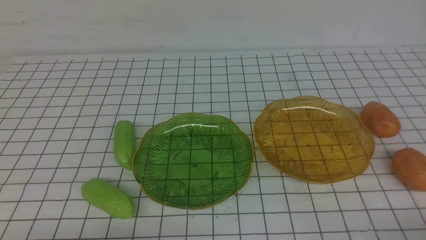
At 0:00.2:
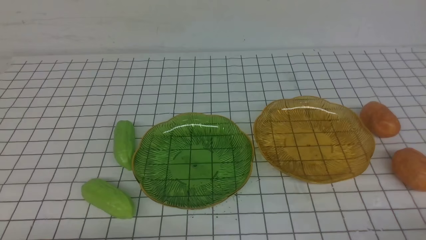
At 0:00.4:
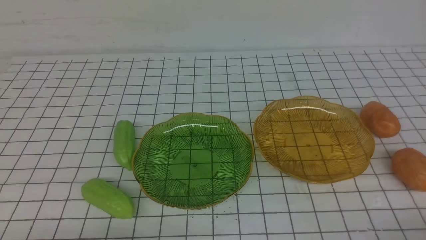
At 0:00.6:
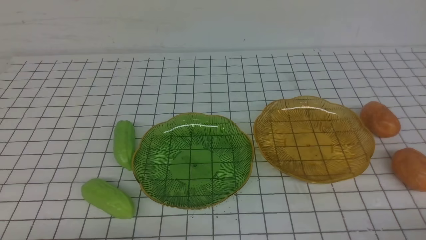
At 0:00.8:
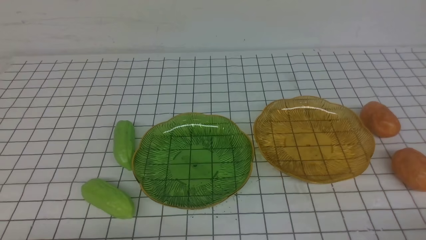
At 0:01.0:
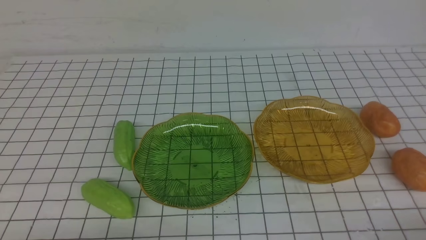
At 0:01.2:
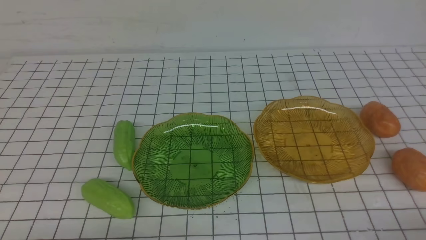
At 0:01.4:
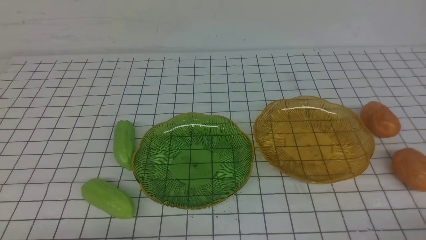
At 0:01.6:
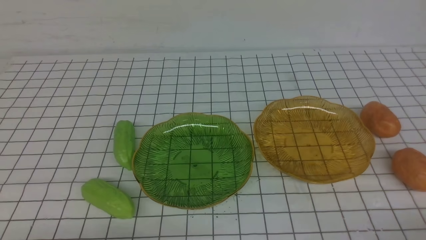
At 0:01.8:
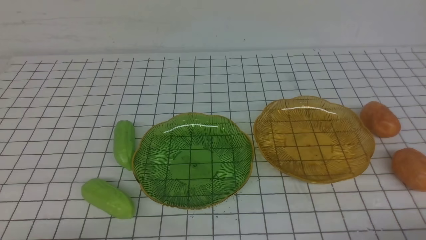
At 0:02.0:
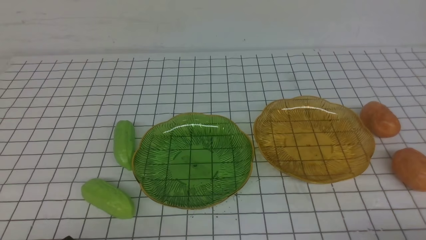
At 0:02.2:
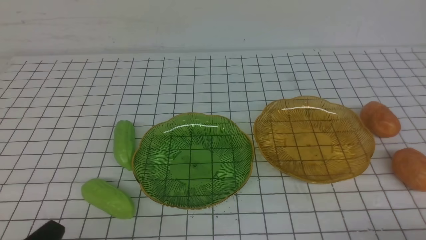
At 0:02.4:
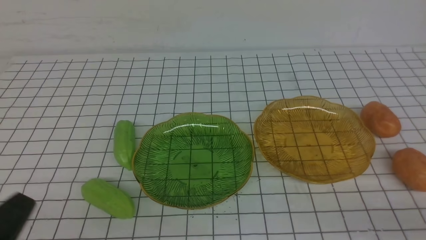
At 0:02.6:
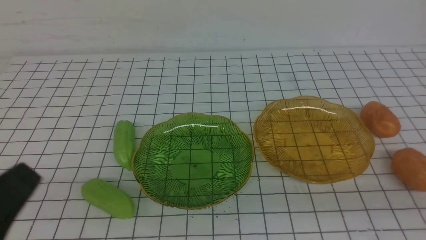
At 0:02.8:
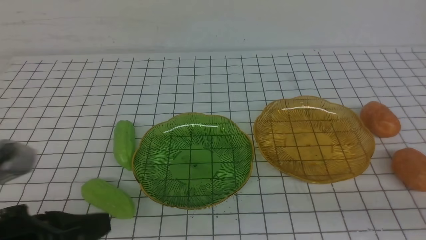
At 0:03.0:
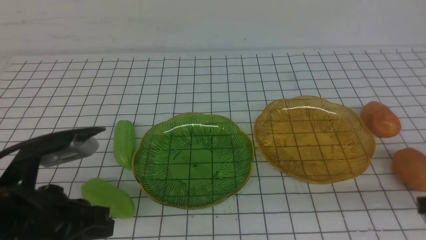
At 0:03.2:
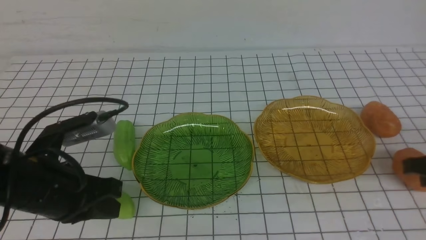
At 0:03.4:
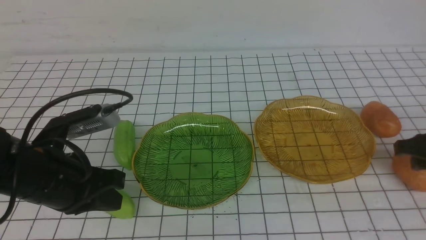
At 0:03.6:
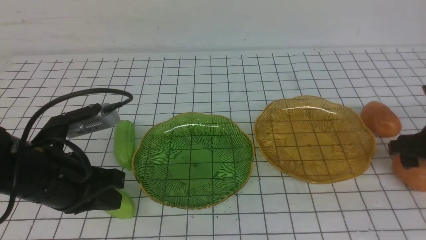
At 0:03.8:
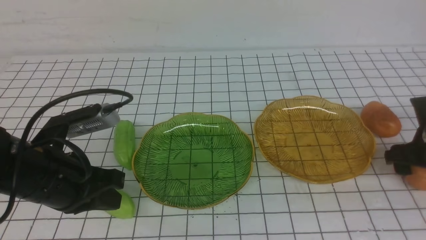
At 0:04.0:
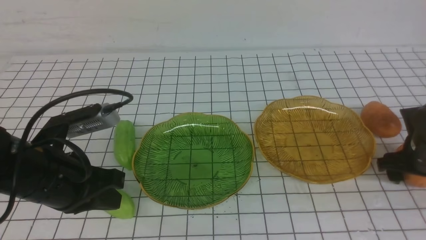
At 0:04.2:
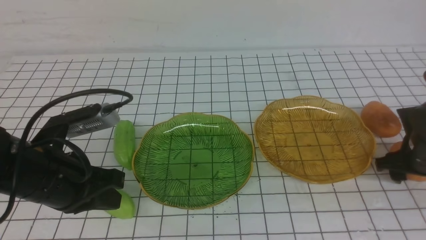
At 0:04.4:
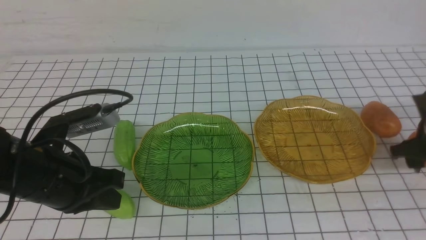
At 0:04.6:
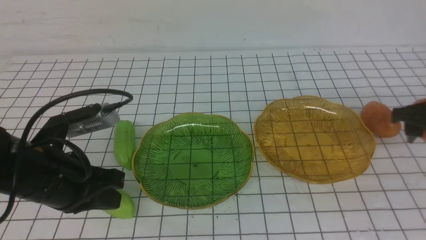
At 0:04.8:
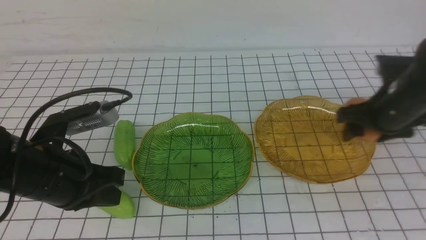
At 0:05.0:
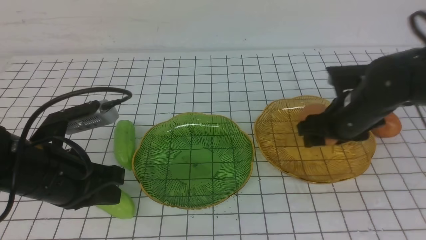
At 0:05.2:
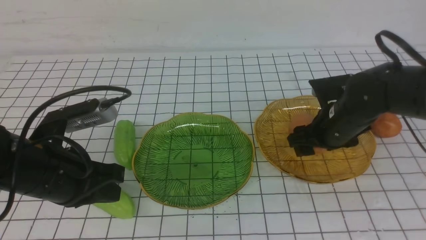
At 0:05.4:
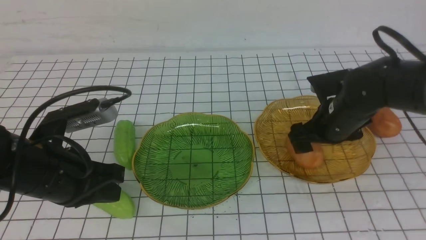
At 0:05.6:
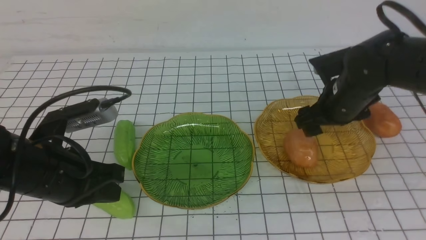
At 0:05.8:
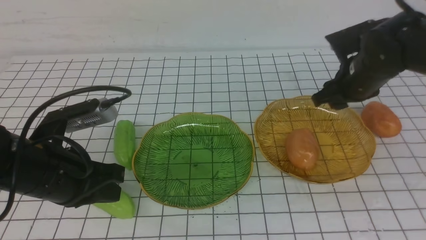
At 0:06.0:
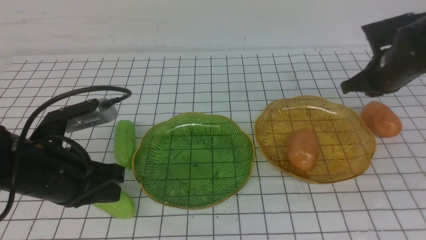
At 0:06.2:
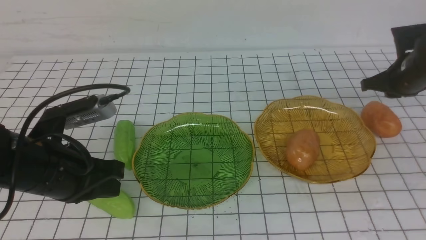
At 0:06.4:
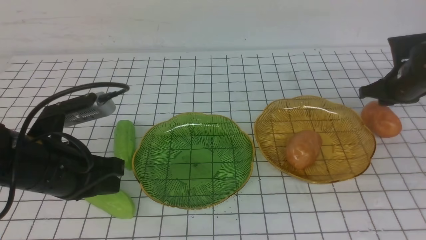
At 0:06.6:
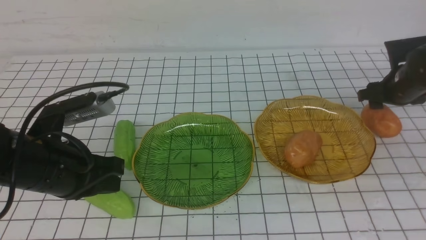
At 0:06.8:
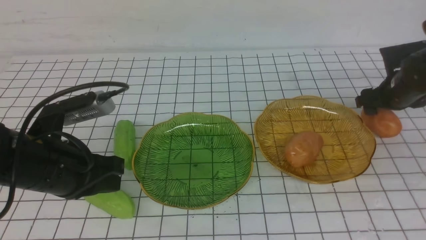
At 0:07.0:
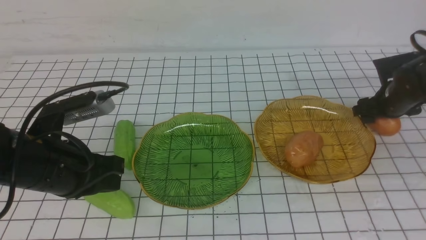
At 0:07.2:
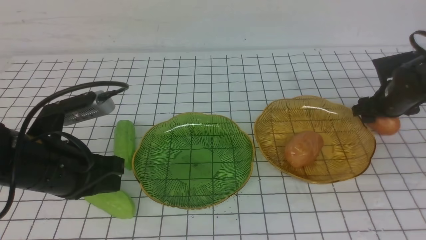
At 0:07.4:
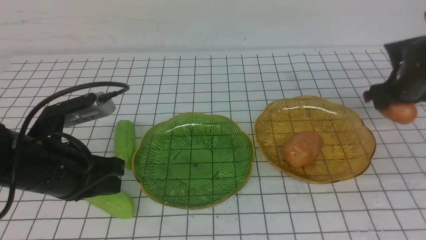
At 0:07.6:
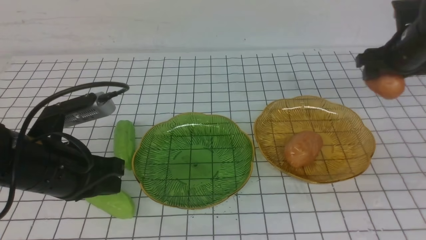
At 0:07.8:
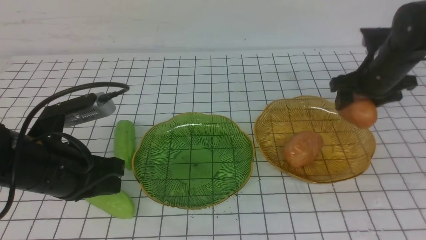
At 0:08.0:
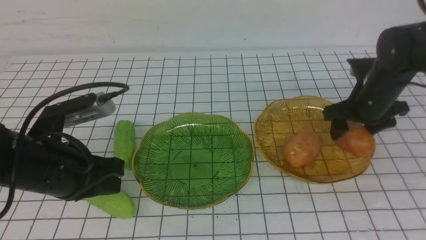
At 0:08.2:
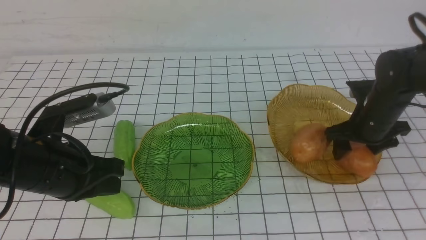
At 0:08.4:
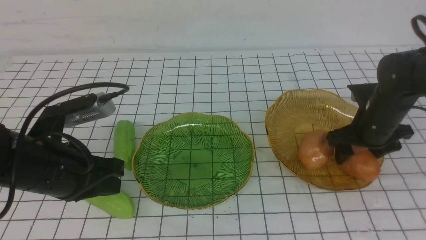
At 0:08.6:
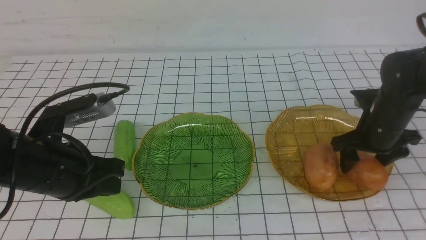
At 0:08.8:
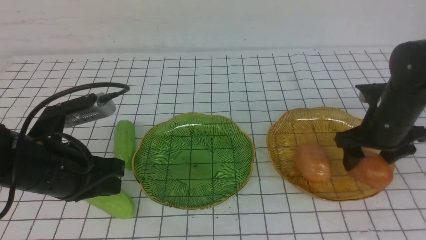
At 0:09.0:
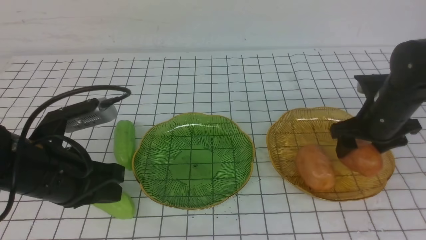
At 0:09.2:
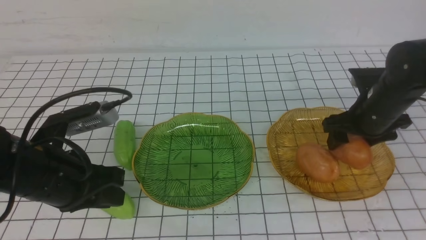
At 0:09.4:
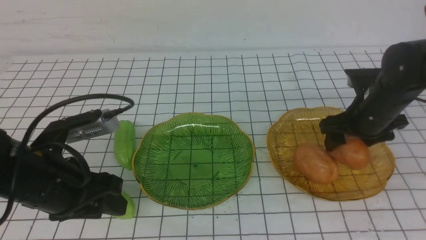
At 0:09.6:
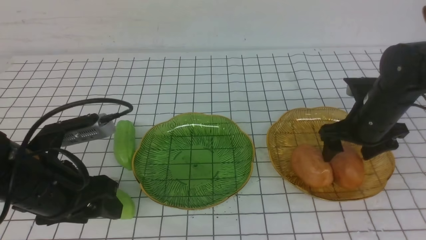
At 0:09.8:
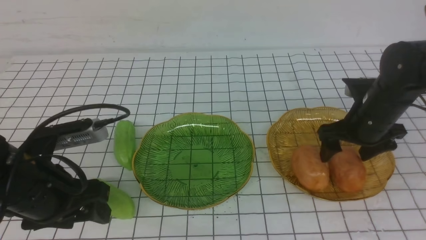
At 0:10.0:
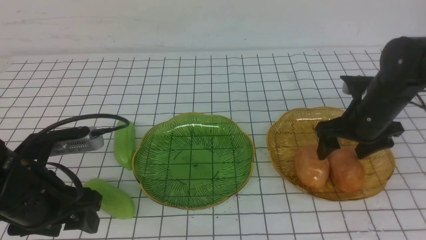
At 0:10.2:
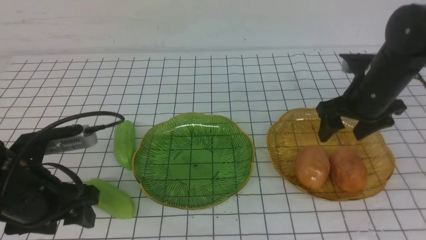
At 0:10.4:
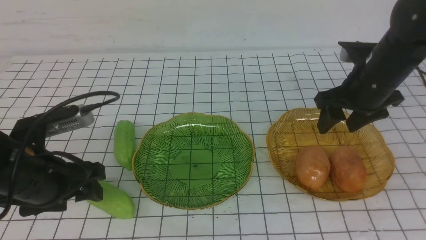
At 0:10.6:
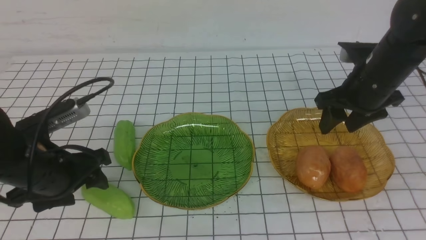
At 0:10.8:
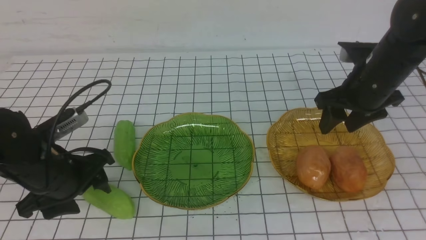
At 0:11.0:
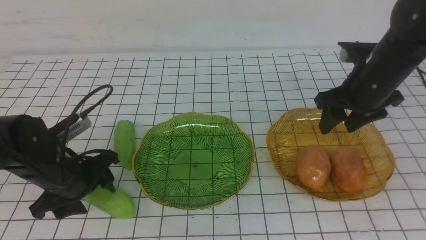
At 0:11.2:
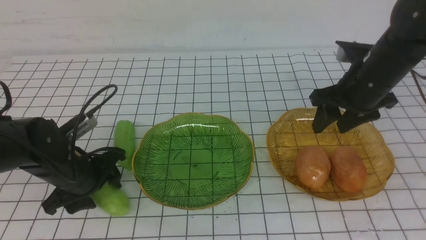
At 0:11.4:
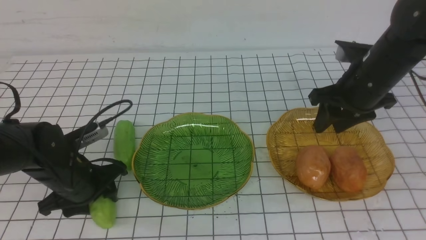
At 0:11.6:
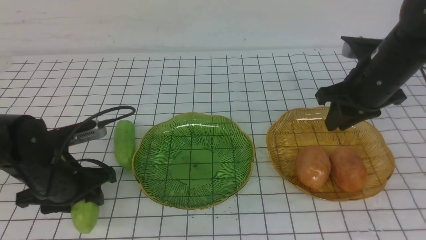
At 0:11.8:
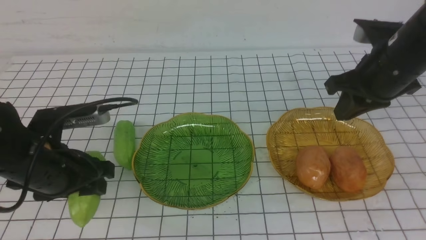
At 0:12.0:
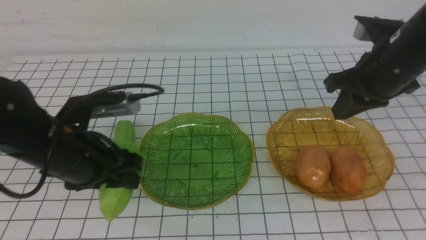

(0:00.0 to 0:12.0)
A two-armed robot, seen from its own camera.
Step, 0:00.0 - 0:10.0: Grab a potato with your right arm and put it on the right plate.
0:01.6 - 0:03.0: The grippers both shift forward and upward by about 15 cm.
0:03.0 - 0:04.4: The left gripper goes about 5 cm forward, while the right gripper travels forward by roughly 15 cm, and opens up.
0:04.4 - 0:06.0: The right gripper is displaced forward by roughly 10 cm, travels to the left and back again, roughly 15 cm each way, and closes.
0:06.0 - 0:07.6: The right gripper travels downward and back again, approximately 10 cm each way, and opens up.
0:07.6 - 0:09.0: The right gripper heads backward, covering about 5 cm.
0:09.0 - 0:10.4: The left gripper opens; the right gripper heads upward, covering approximately 5 cm.
0:10.4 - 0:12.0: The left gripper moves some 10 cm downward and comes back. Meanwhile the right gripper shifts roughly 5 cm upward, and closes.

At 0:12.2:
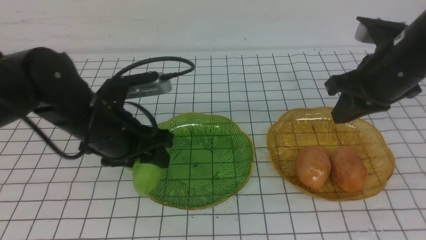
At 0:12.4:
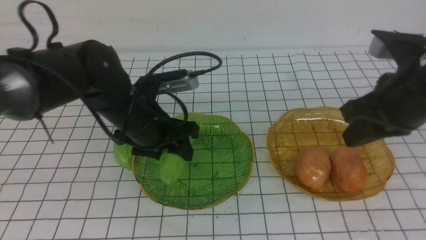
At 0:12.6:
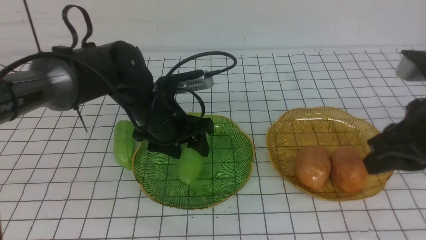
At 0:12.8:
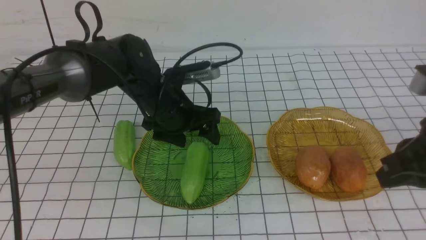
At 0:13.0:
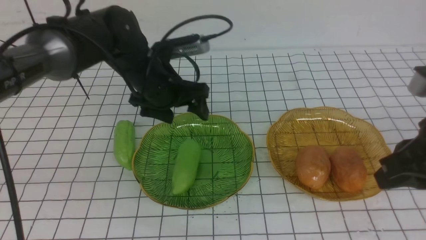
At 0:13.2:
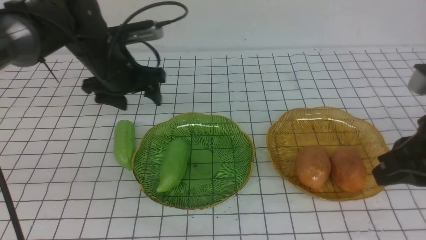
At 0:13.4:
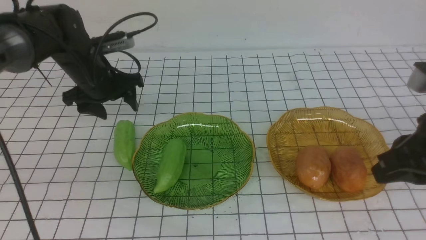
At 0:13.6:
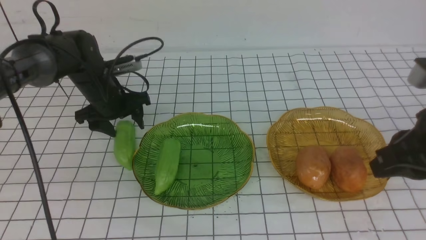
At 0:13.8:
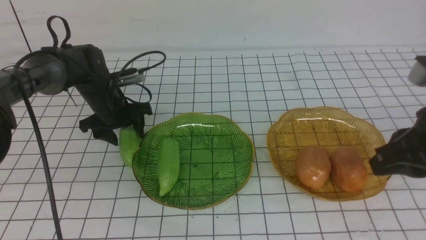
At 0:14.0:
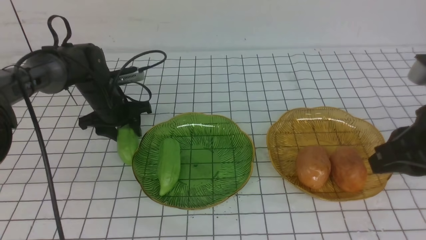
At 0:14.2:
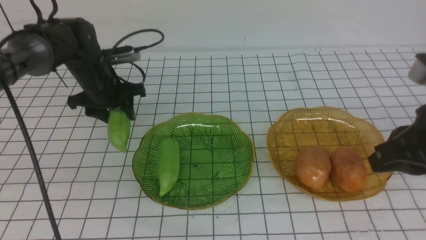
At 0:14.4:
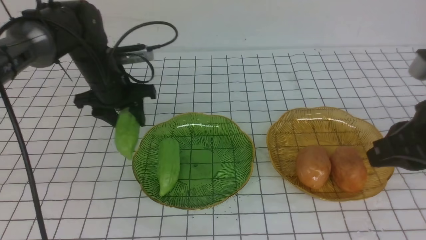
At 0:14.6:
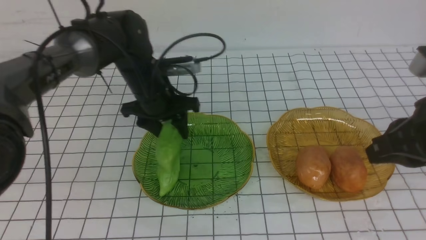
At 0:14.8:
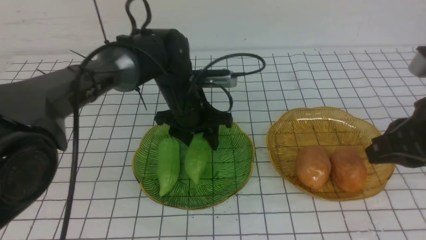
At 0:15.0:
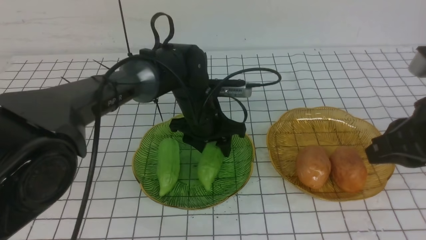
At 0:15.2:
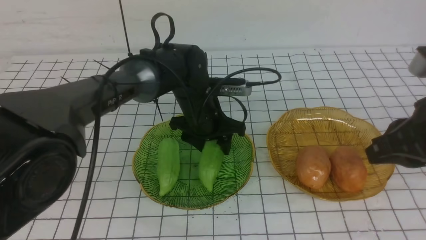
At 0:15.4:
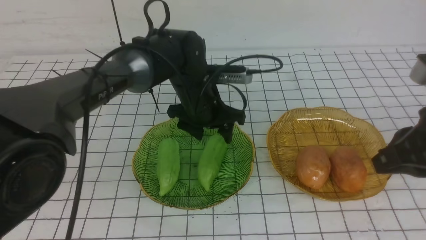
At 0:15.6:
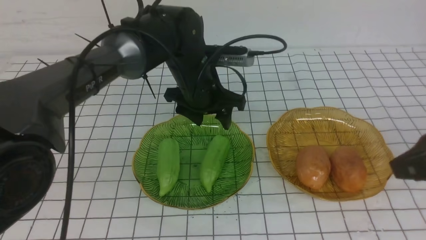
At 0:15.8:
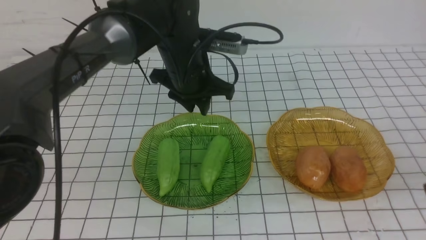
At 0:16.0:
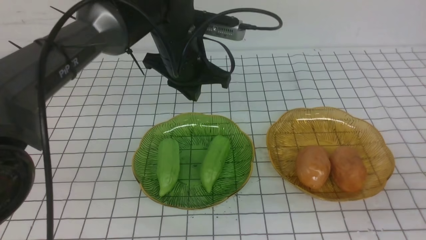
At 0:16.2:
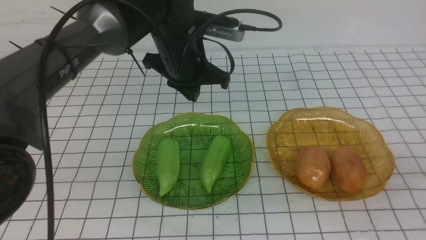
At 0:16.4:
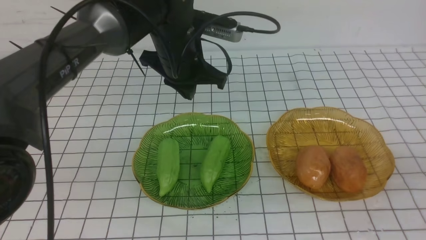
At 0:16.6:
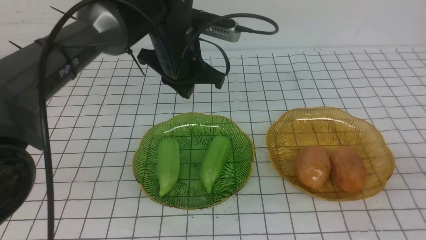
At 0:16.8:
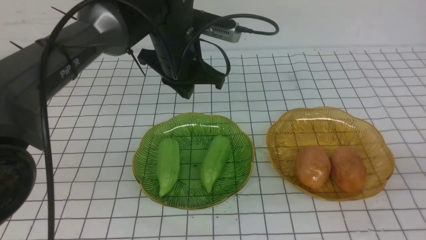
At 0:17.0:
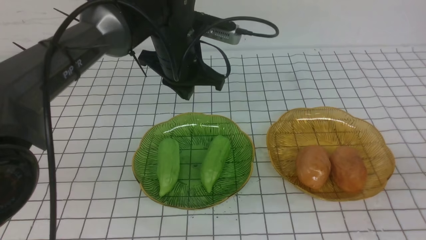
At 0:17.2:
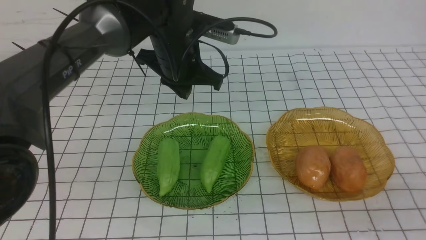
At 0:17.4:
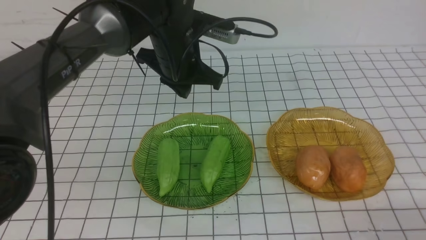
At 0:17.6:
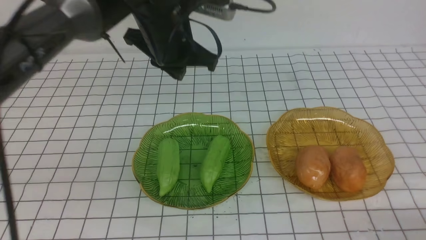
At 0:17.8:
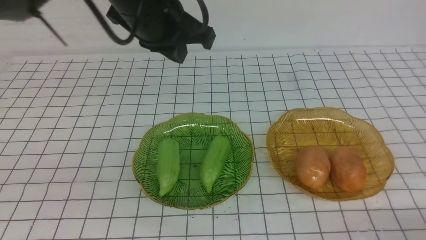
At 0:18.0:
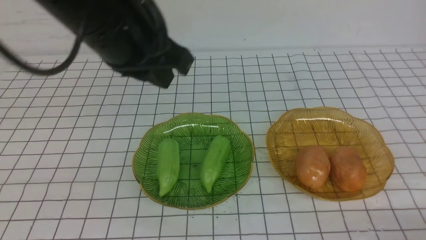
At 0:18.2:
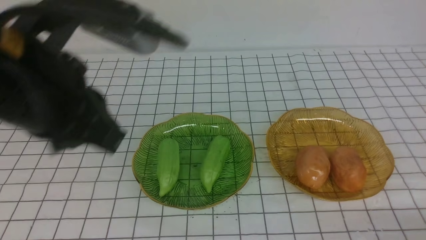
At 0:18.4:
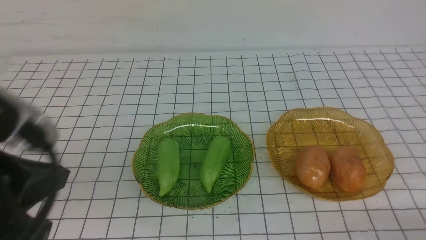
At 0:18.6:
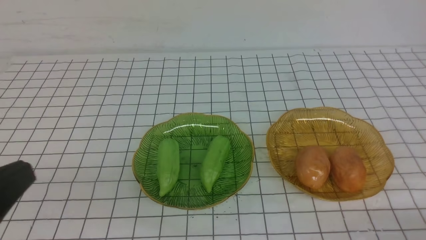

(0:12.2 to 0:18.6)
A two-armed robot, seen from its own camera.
Step, 0:12.2 - 0:15.4: use the left arm to grab a chayote and put it into the left plate.
0:12.2 - 0:13.8: The right gripper is displaced backward by about 10 cm, while the left gripper heads forward, downward and to the left, covering about 20 cm.
0:13.8 - 0:15.4: The left gripper travels to the right by approximately 20 cm.
0:15.4 - 0:17.0: The right gripper travels backward and downward by some 15 cm. The left gripper moves upward, approximately 10 cm, and closes up.
0:17.0 - 0:18.6: The left gripper moves backward and to the left, some 40 cm. The right gripper travels downward by some 10 cm.
